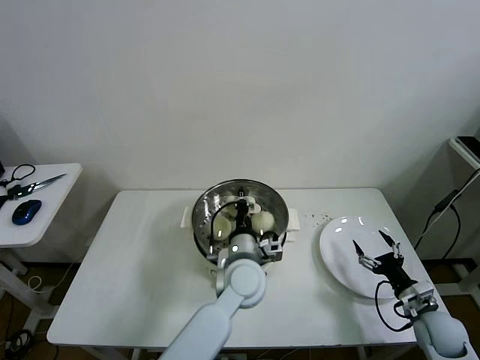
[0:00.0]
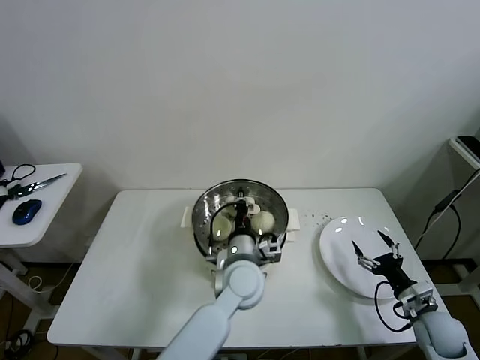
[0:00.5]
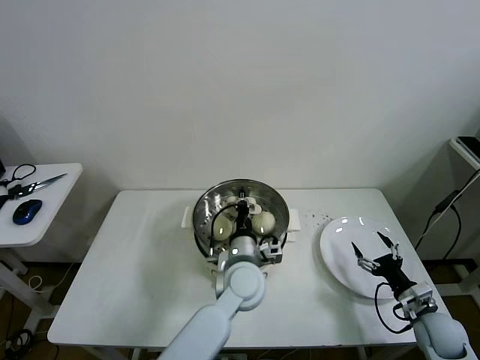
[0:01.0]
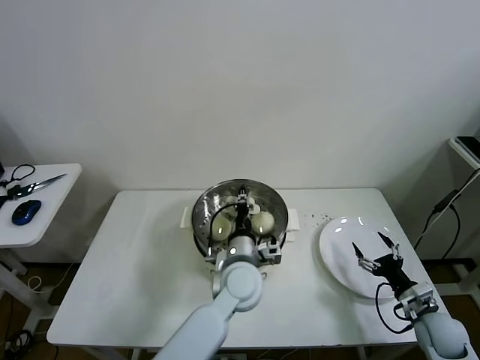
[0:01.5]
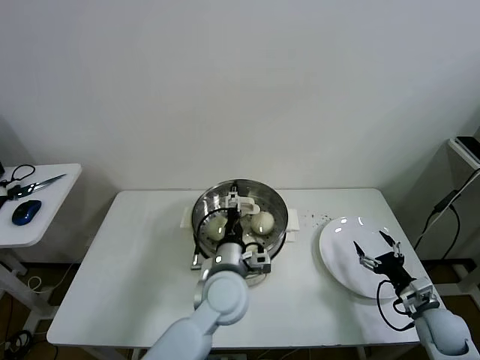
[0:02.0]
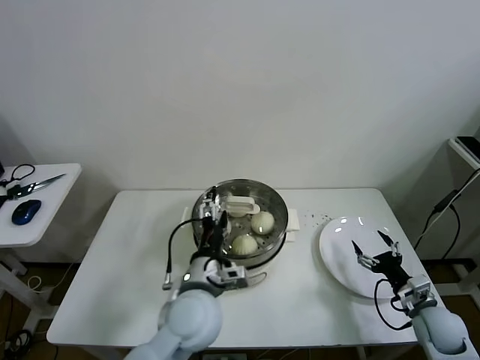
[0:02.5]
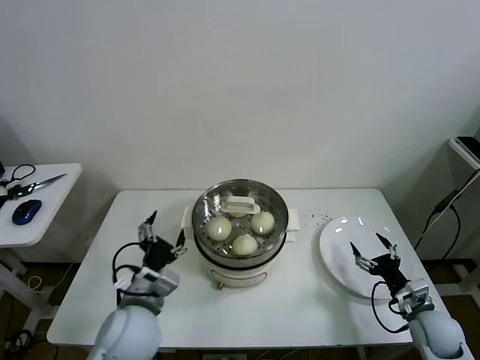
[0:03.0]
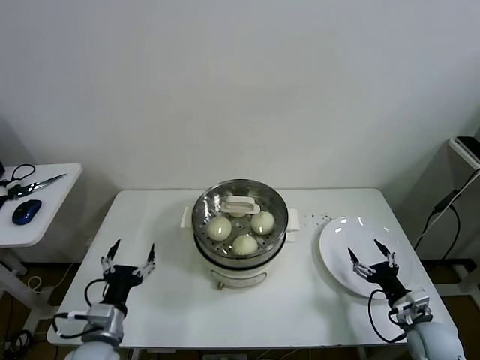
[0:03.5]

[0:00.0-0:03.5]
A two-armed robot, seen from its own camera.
Task of the whole recording: take steamed baozi put them in steamer then cover it.
0:00.0 to 0:02.0: The left gripper opens.
0:02.0 to 0:03.5: The left gripper heads to the left and backward, covering approximately 25 cm.
